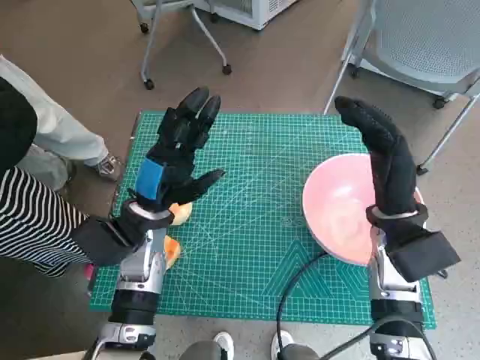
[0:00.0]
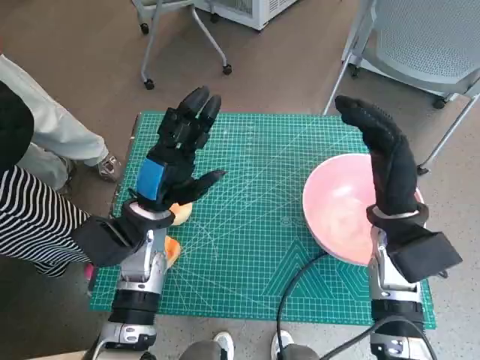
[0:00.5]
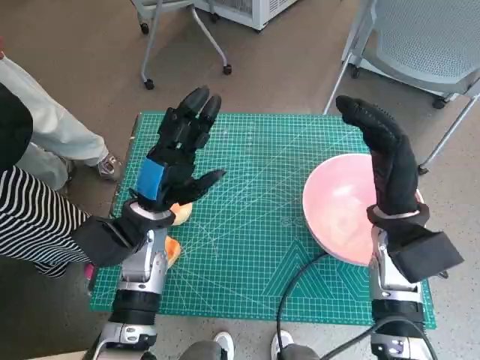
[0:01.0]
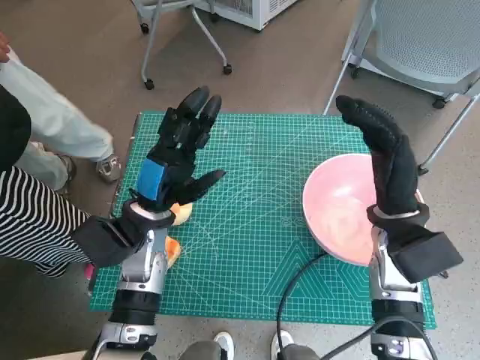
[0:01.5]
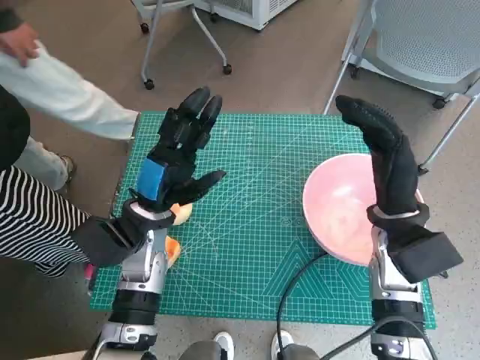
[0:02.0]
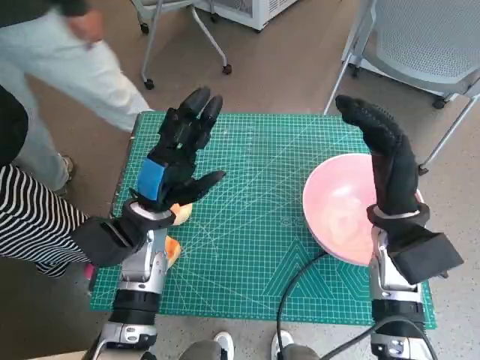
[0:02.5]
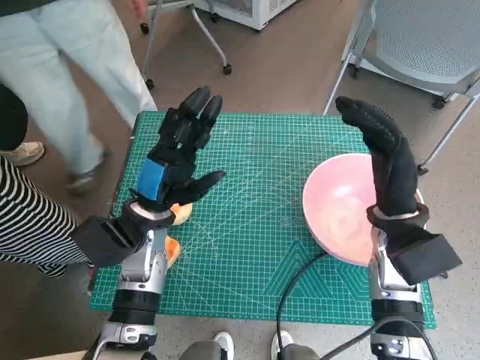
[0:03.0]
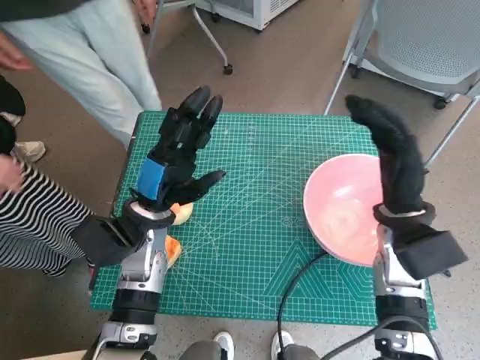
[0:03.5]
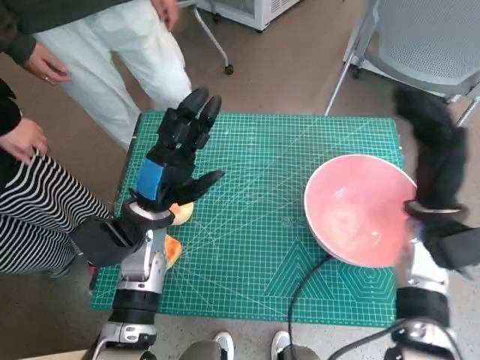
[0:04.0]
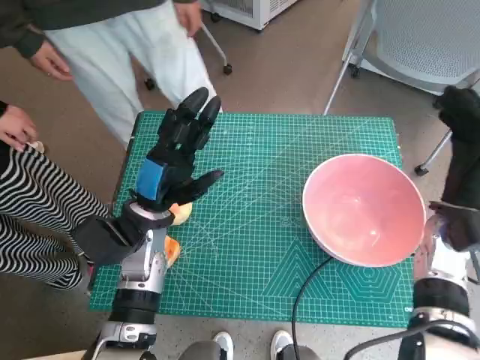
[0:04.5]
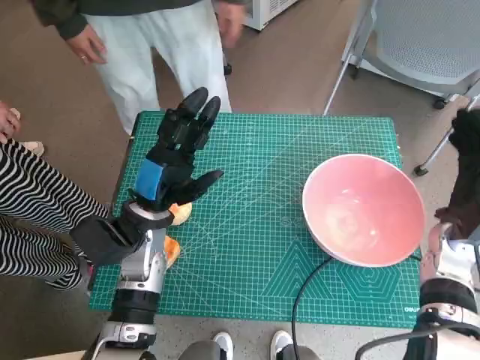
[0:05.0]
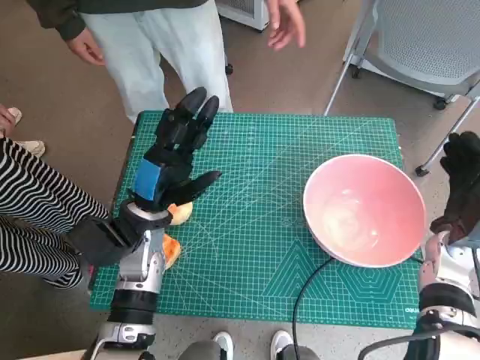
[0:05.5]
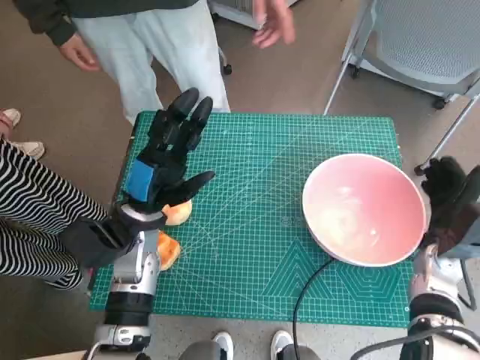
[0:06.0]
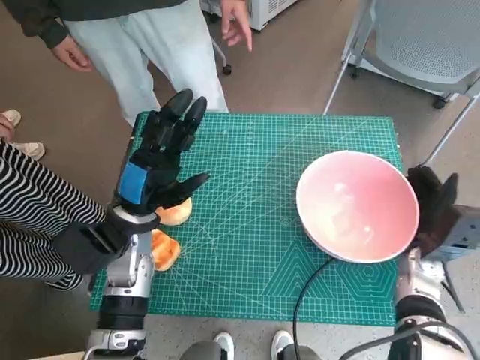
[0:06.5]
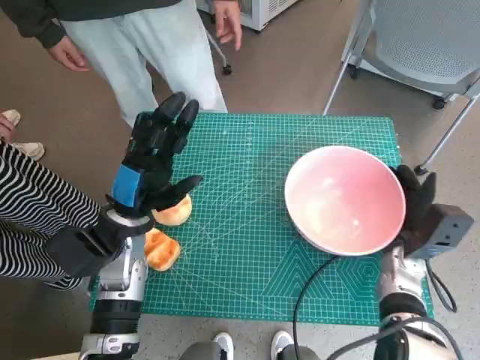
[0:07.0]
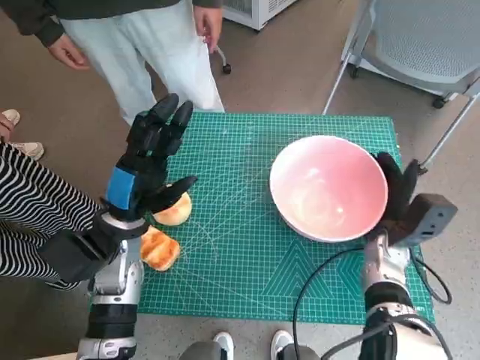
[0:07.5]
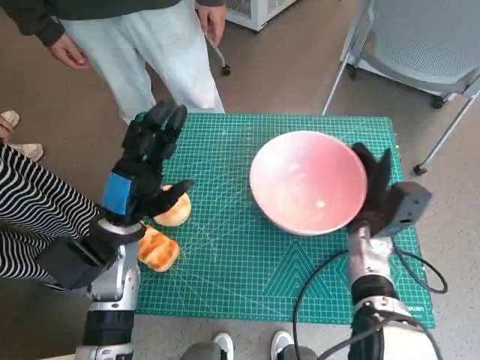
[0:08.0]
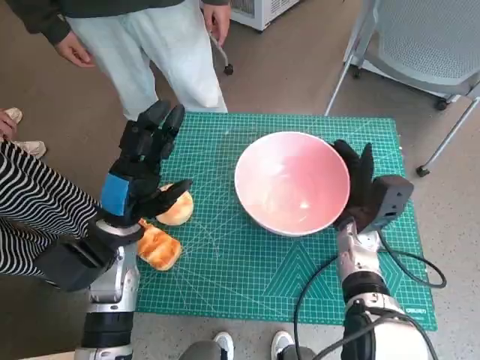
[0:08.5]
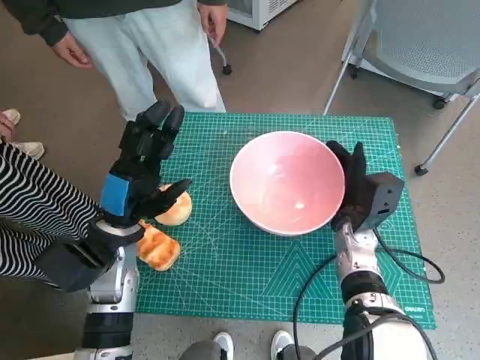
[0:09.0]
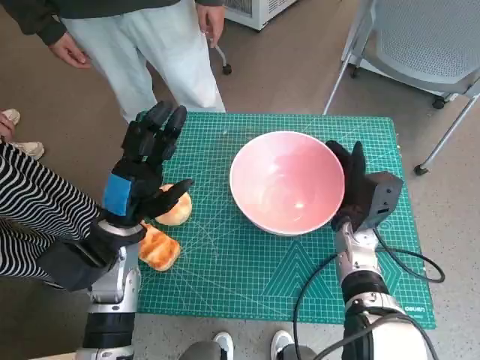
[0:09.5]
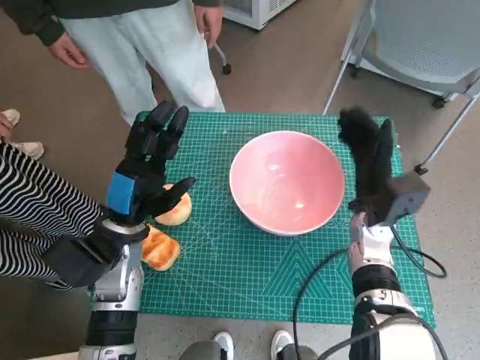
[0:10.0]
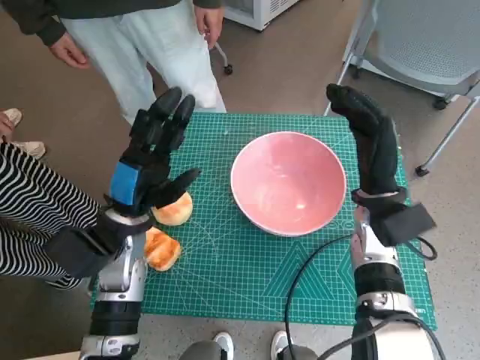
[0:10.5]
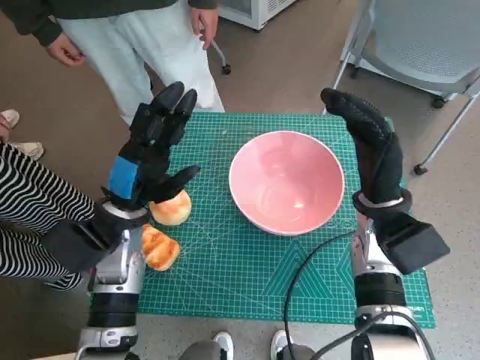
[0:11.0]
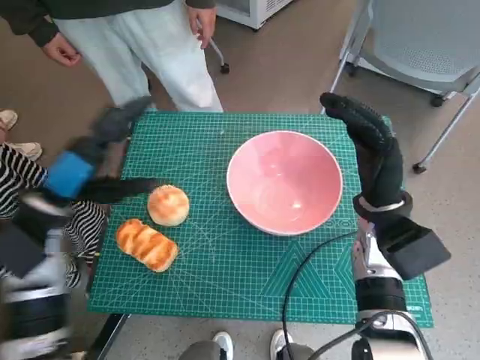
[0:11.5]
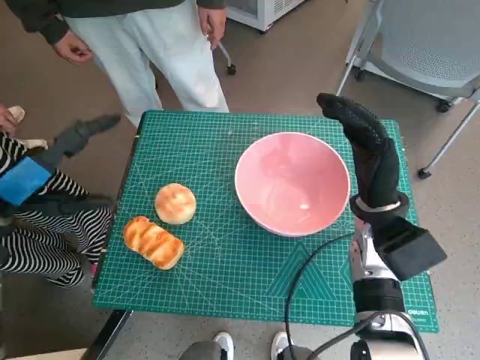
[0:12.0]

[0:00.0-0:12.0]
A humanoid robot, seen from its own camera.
Task of the whole recording: Push the bowl into the center of the table and put the bread into the bowl.
Step, 0:00.0 to 0:11.0: Move the pink bowl to the center of table with right hand.
0:04.0 to 0:06.0: The right hand moves downward and to the right, some 10 cm.
0:06.0 to 0:08.0: The right hand is displaced to the left by about 10 cm.
0:08.0 to 0:10.0: The hands stay close to where they were, moving slightly.
0:10.0 to 0:12.0: The left hand is displaced to the left and upward by some 15 cm, while the right hand goes approximately 5 cm upward.

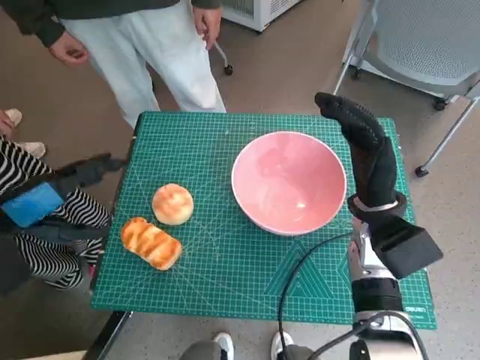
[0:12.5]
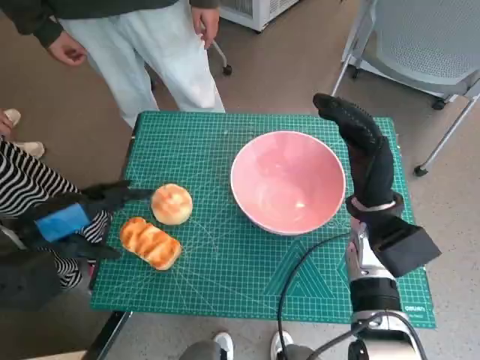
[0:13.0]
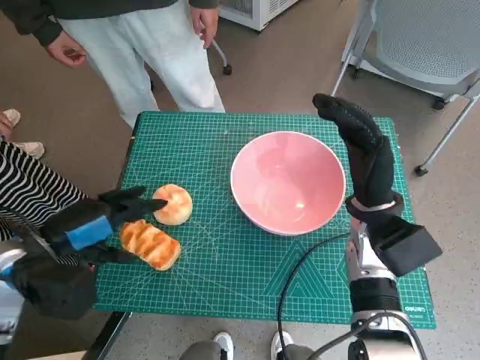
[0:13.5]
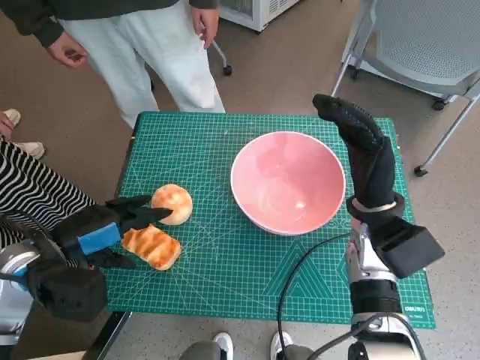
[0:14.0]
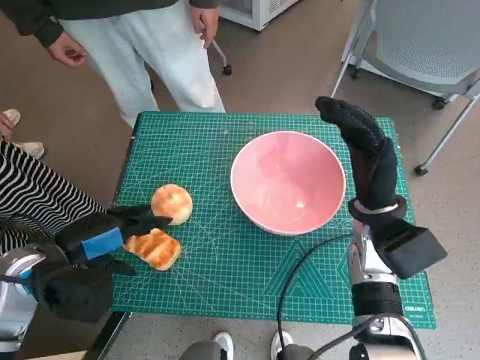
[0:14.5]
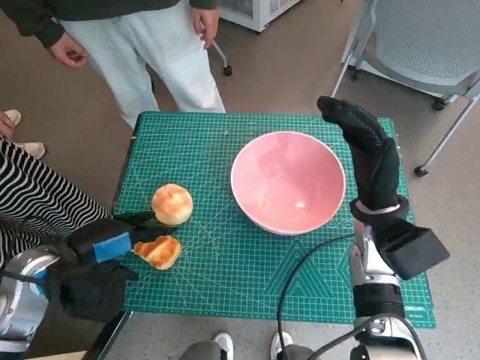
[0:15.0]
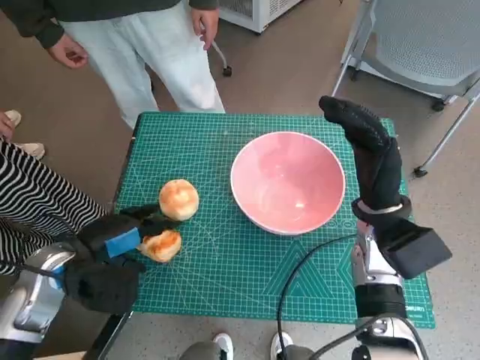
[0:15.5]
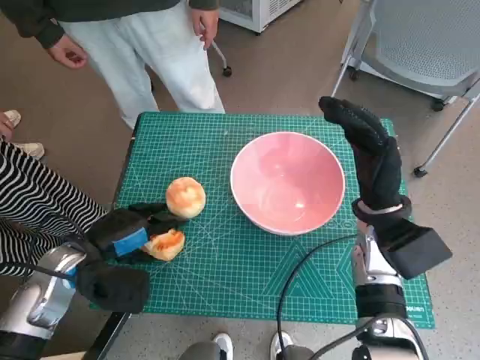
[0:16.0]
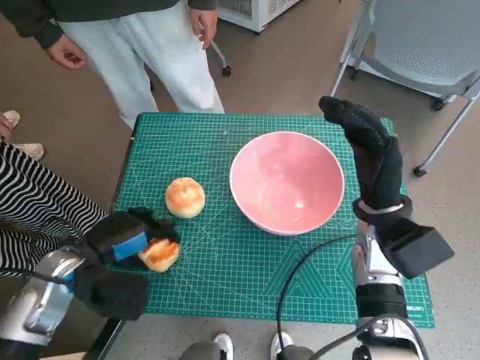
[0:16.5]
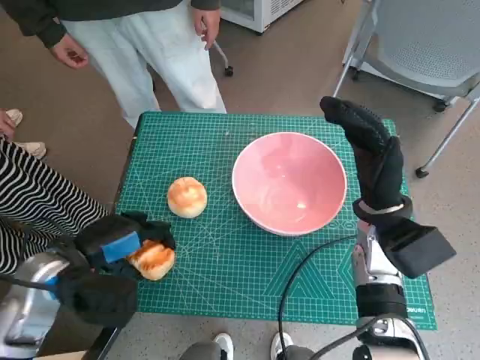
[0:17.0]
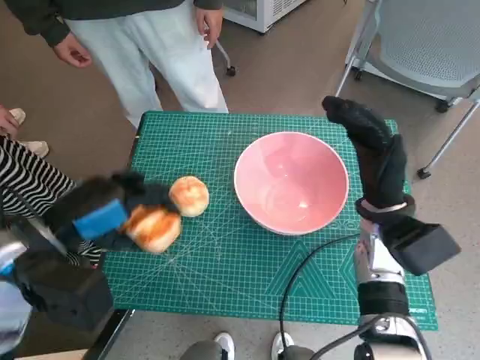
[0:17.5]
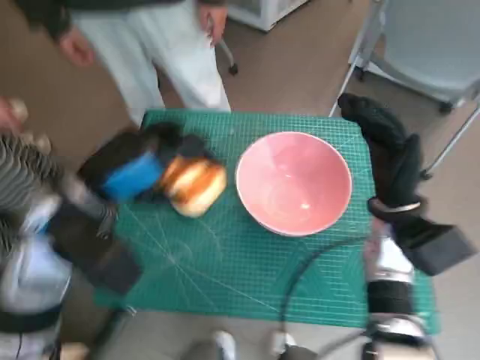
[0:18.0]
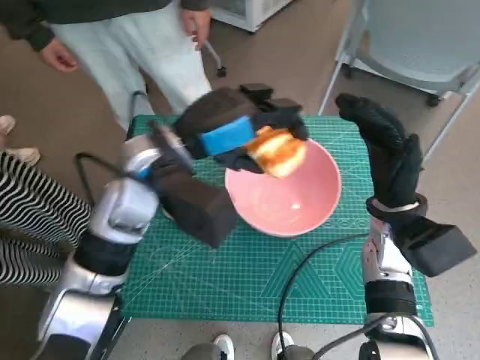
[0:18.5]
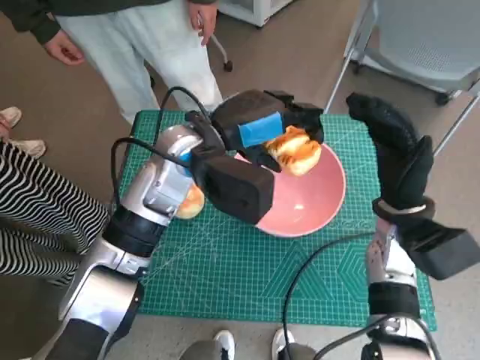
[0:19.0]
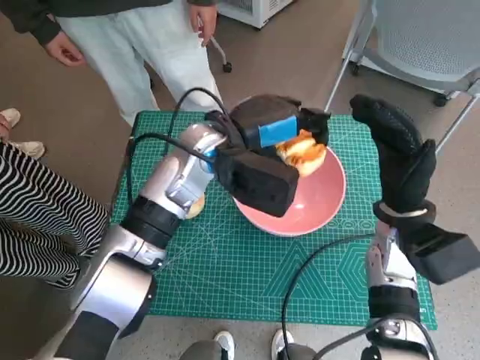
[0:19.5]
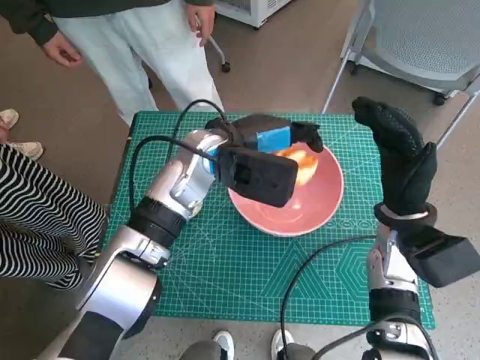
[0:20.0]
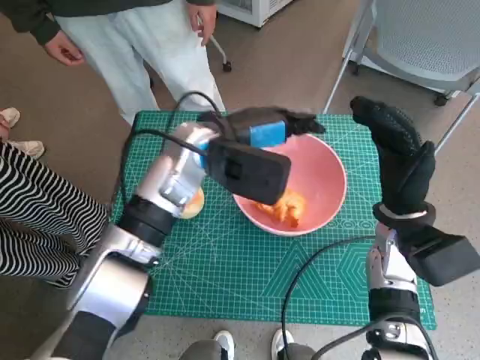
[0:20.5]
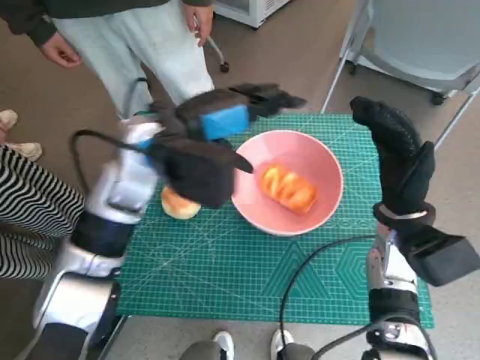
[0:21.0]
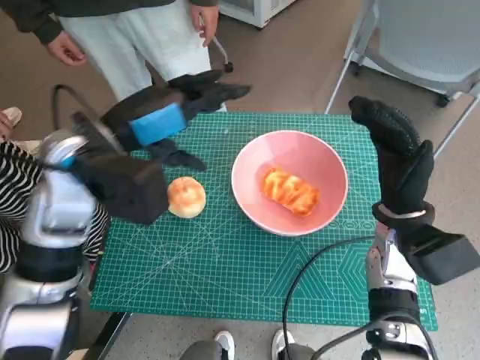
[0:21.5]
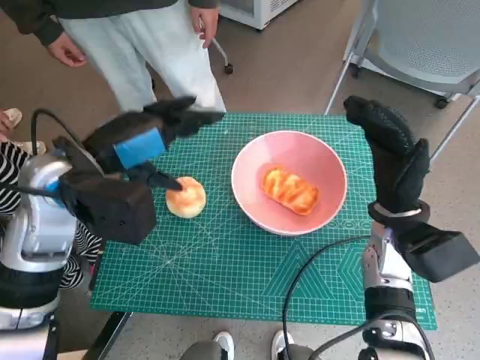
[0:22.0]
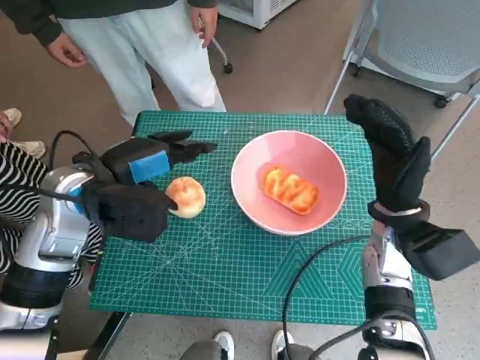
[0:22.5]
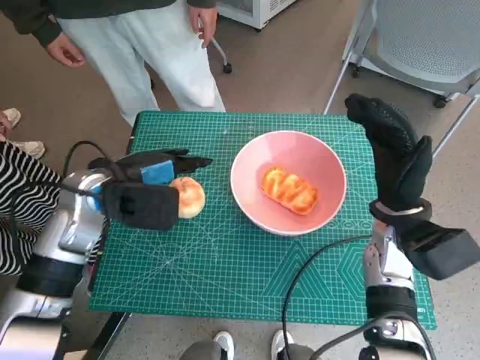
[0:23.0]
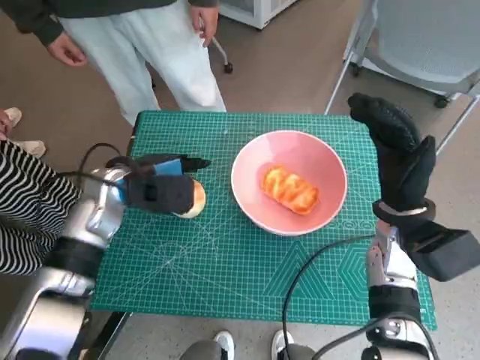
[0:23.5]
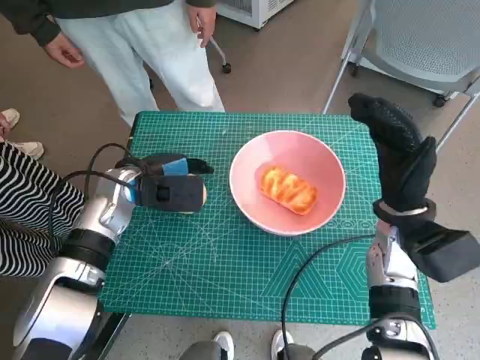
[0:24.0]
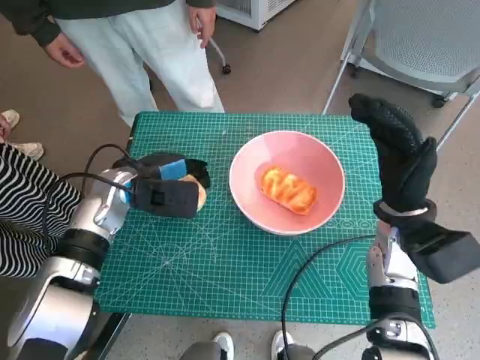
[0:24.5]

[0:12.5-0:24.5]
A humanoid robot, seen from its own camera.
Task of the whole recording: Push the bowl into the center of the table and put the bread into the bowl.
Step, 0:12.5 to 0:16.0: Grasp the long bread with left hand.
Step, 0:16.5 to 0:21.0: Place the long bread in pink bowl with left hand.
Step, 0:21.5 to 0:24.0: Grasp the round bread with left hand.
0:12.5 to 0:14.5: The left hand heads downward, covering approximately 5 cm.
0:14.5 to 0:16.5: There are only small adjustments of the hands.
0:16.5 to 0:18.5: The left hand is displaced to the right, upward and forward by roughly 20 cm.
0:18.5 to 0:20.5: The left hand ends up about 5 cm from where it was.
0:20.5 to 0:22.5: The left hand moves to the left and backward, some 15 cm.
0:22.5 to 0:24.5: The left hand goes roughly 10 cm downward and forward.

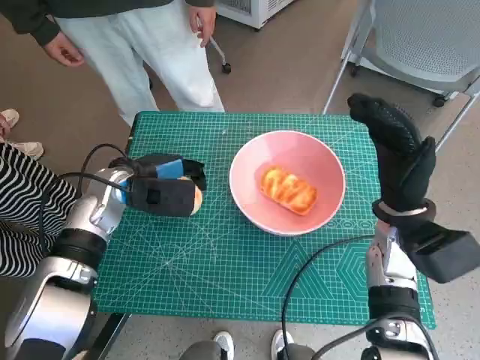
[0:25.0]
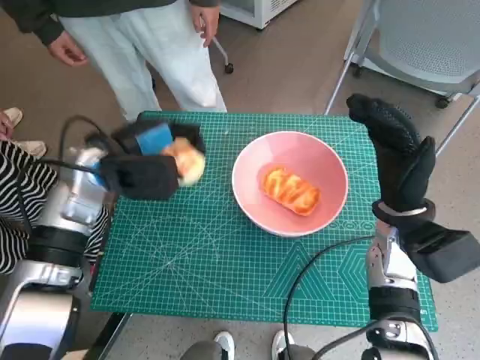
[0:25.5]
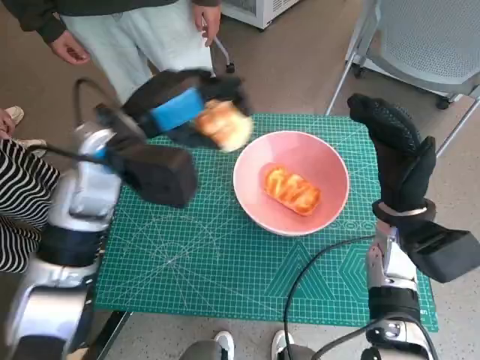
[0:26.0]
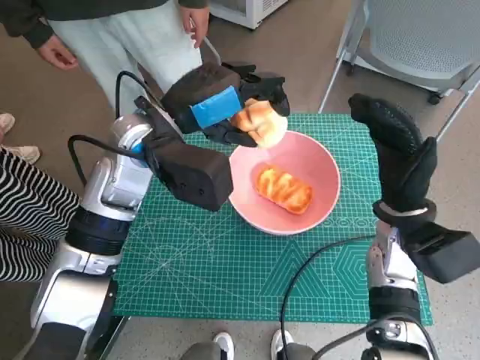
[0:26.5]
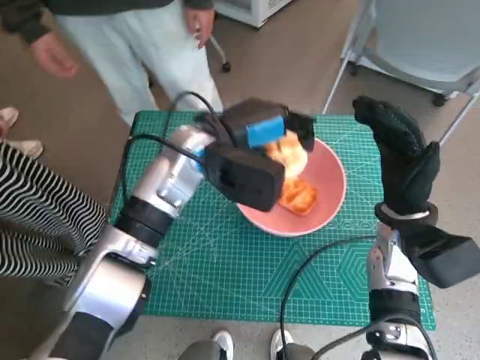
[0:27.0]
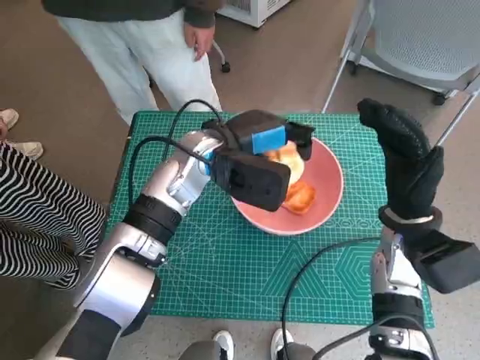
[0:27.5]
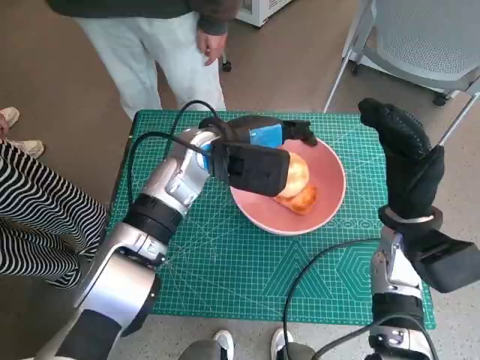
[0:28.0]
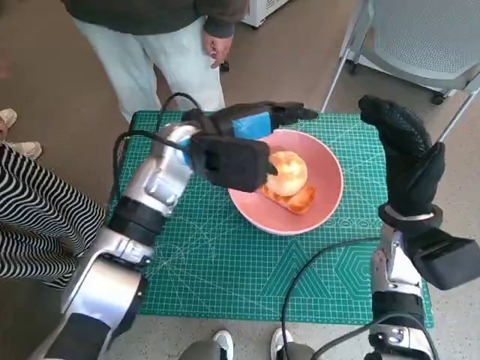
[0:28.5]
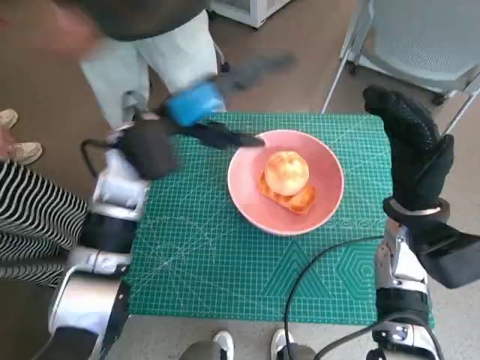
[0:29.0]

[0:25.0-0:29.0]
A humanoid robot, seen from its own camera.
Task of the whole recording: Push the bowl into the center of the table and put the bread into the bowl.
Step, 0:25.0 to 0:28.5: Place the round bread in pink bowl with left hand.
0:25.0 to 0:27.0: The left hand travels to the right and upward by roughly 15 cm.
0:27.0 to 0:29.0: The left hand goes roughly 5 cm to the left.
